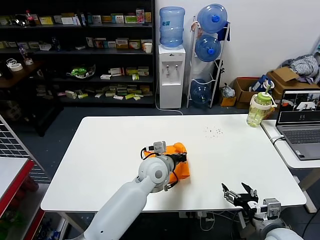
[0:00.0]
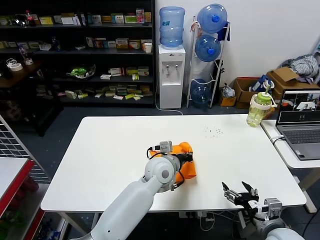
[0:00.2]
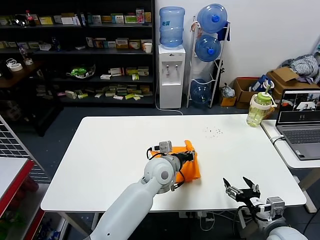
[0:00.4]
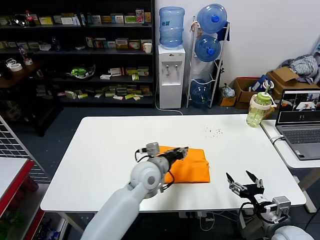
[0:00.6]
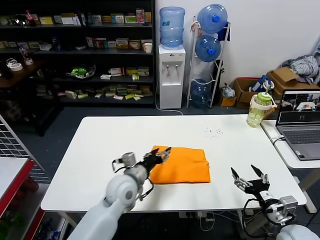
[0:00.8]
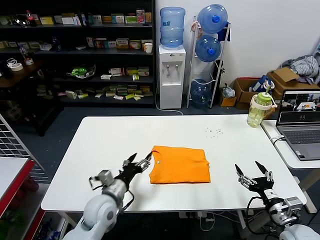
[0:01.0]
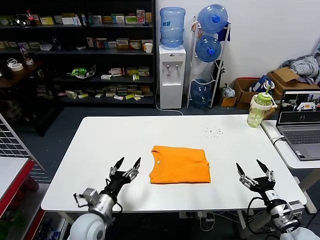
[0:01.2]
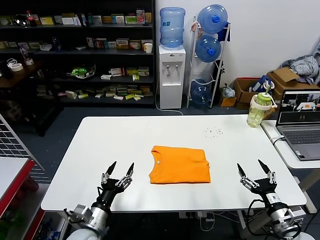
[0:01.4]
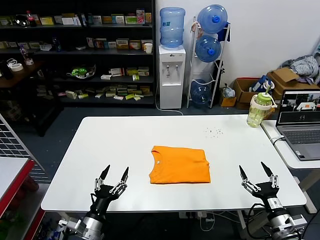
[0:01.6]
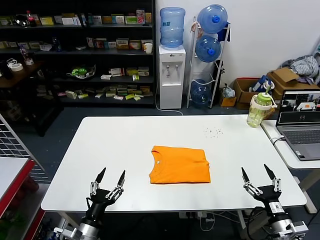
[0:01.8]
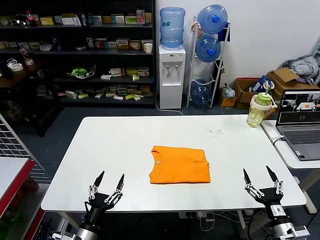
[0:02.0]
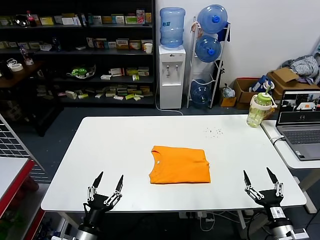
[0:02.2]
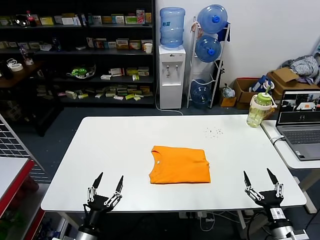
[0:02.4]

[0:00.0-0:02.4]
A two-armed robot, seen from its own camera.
Task of the whole recording: fold and organize the clothes.
0:00.0 to 0:01.2: The right gripper goes about 5 cm to the right. The left gripper shifts some 25 cm to the left, backward and downward, and opens up.
0:01.2 to 0:02.4: The right gripper moves about 5 cm. The left gripper goes about 10 cm backward.

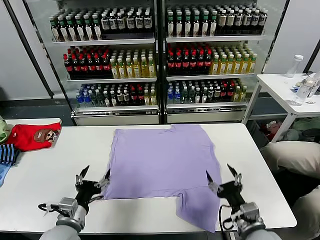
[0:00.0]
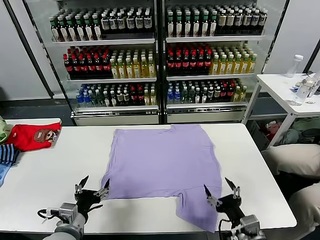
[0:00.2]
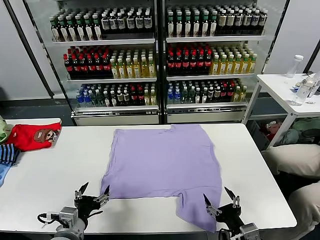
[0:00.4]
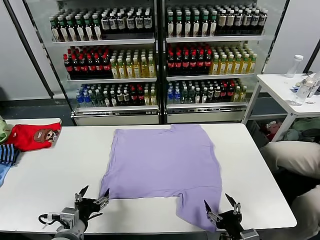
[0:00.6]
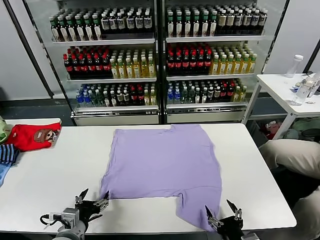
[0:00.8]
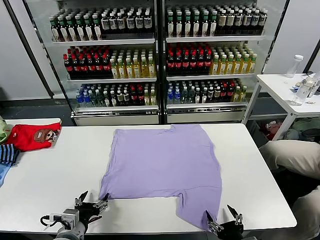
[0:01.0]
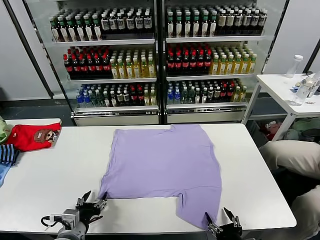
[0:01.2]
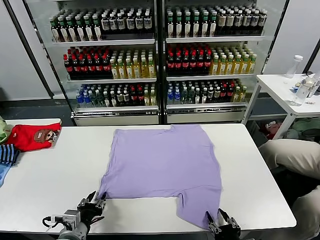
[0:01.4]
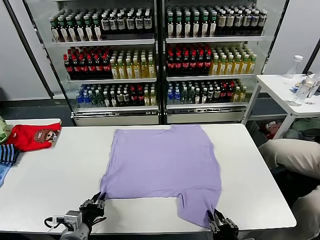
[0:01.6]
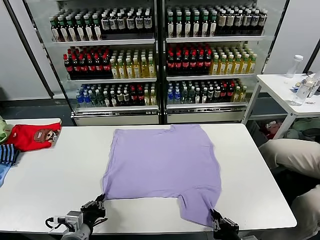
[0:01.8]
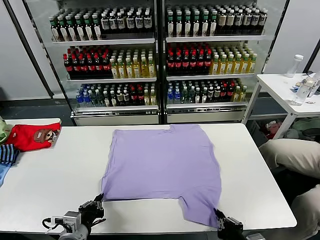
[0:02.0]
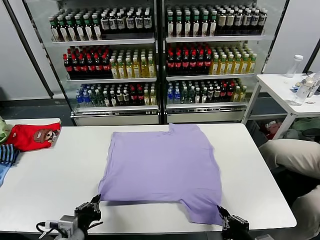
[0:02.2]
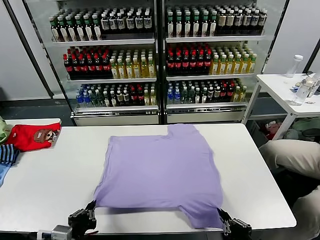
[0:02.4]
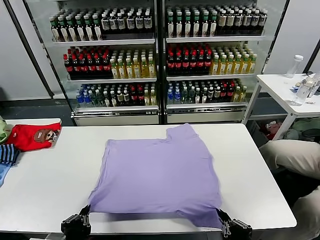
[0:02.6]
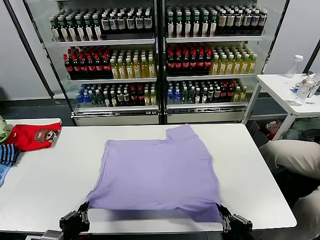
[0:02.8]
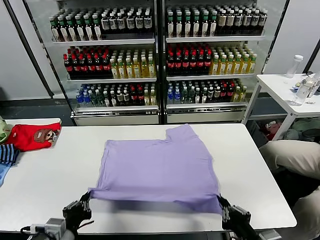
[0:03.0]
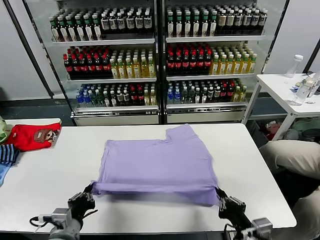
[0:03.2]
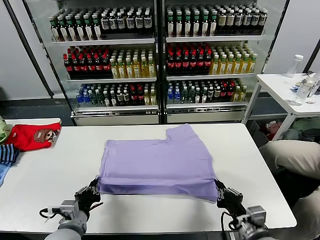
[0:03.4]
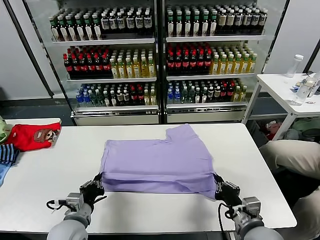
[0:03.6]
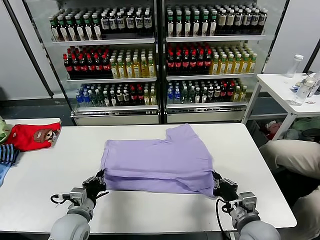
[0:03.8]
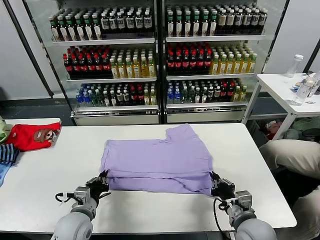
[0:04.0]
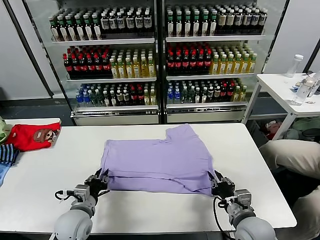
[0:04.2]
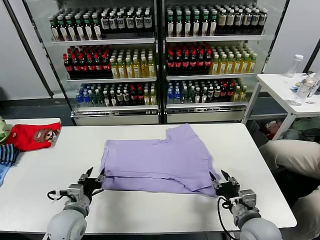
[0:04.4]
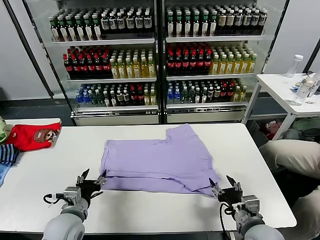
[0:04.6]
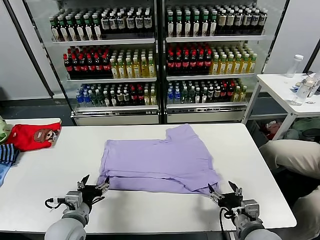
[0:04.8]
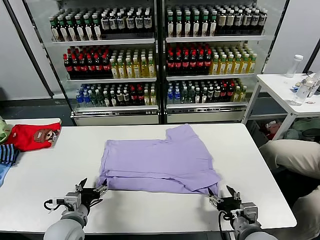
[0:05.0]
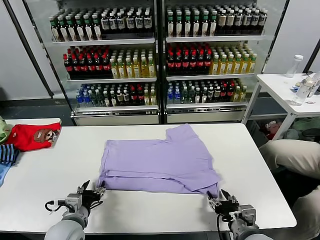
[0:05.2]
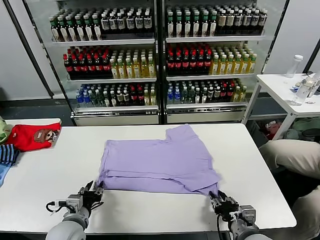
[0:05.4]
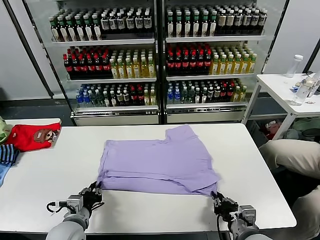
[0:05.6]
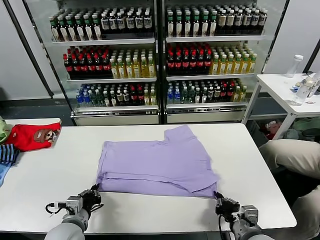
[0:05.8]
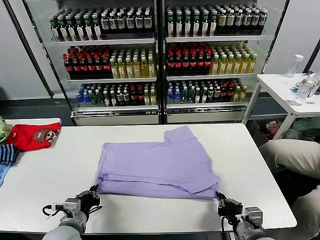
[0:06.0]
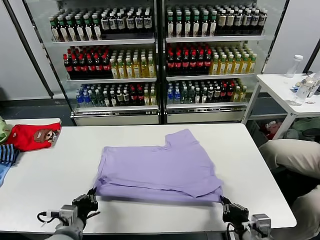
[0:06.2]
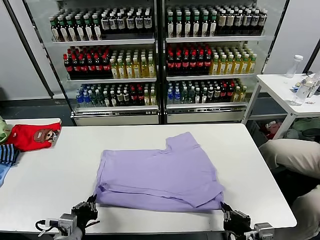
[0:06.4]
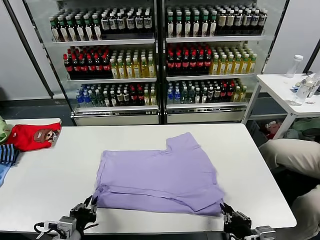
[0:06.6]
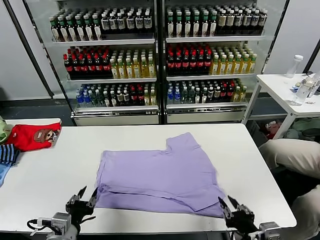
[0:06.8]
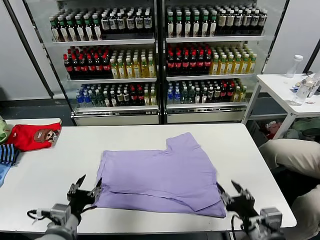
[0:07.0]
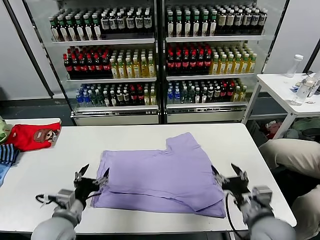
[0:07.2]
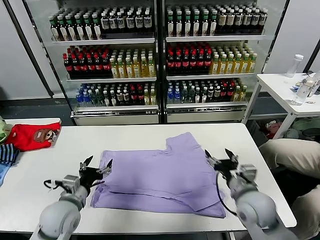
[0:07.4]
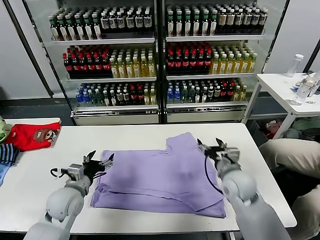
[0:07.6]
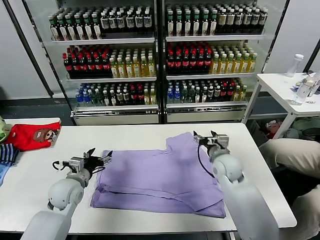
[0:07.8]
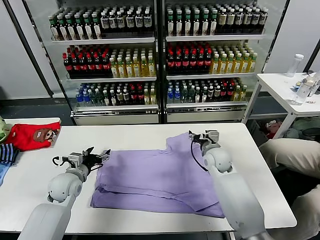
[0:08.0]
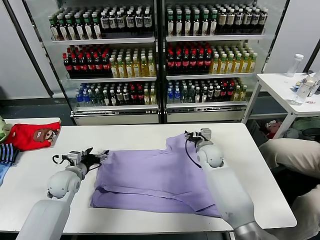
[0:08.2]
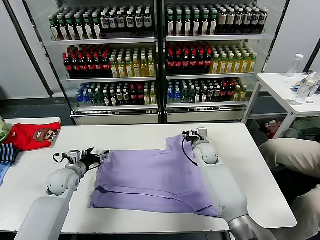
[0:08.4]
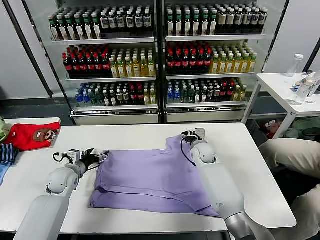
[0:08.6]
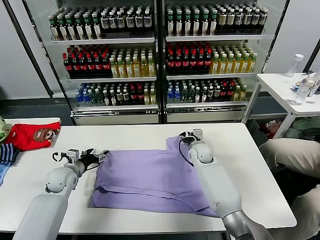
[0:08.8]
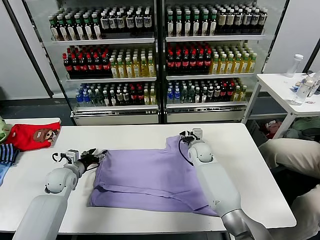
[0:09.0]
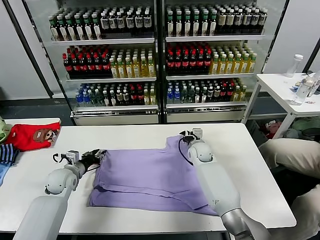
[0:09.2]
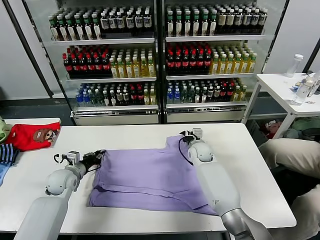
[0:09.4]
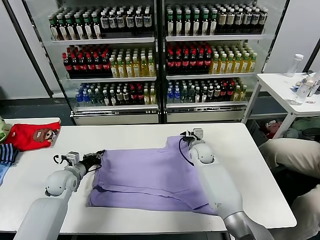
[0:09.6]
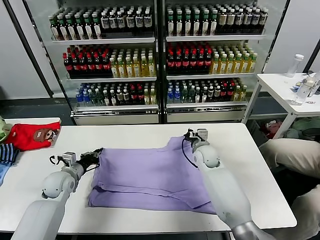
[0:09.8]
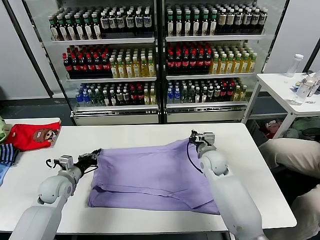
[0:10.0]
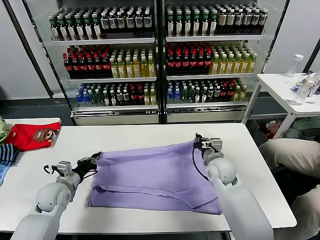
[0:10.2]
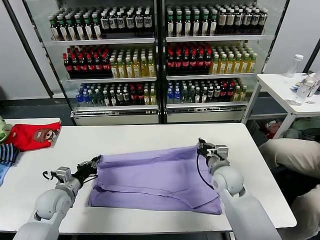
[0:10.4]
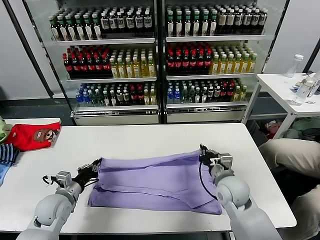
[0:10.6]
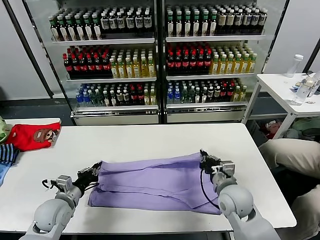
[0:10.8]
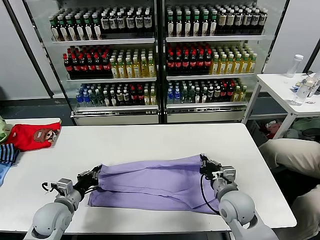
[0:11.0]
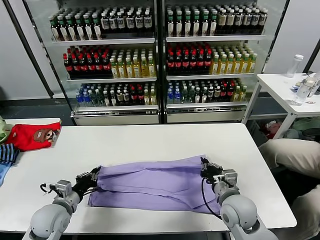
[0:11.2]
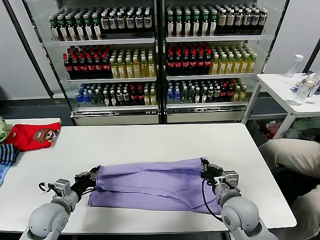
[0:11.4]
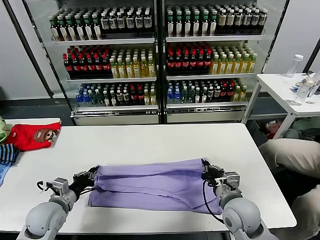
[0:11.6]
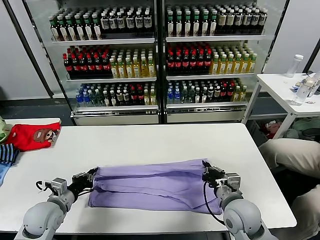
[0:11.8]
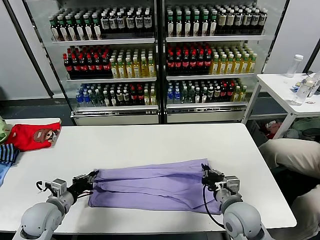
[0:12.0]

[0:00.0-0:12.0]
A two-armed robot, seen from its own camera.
Task of the whole recording: fold and organize the clothes.
Step, 0:00.0 to 0:02.0: use both grippers simultaneously to clamp the lower edge of the clothing fabric.
Step, 0:02.2 to 0:04.4: use both grippers to drag the lower edge of the fabric forward and fold it over the upper edge.
Step, 0:04.6 to 0:06.8: Drag the clothes downward with both gripper.
Step, 0:07.0 to 0:09.8: use both grippers simultaneously to clamp the upper edge of the clothing fabric.
0:01.6 to 0:03.0: The left gripper goes roughly 5 cm upward, while the right gripper heads upward, covering about 10 cm.
0:03.0 to 0:04.4: The two grippers go some 10 cm forward. The right gripper opens up, while the left gripper opens up.
0:04.4 to 0:06.0: The right gripper goes approximately 5 cm backward, and closes; the left gripper closes its fingers.
0:06.0 to 0:07.6: The left gripper shifts some 10 cm forward, and opens up. Meanwhile the right gripper moves forward, some 25 cm, and opens its fingers.
0:07.6 to 0:09.0: The right gripper goes roughly 15 cm forward, to the left and downward, and closes up. The left gripper heads forward and to the left, covering about 10 cm.
0:09.0 to 0:10.4: The left gripper travels backward by some 10 cm, and closes its fingers. The right gripper shifts roughly 15 cm backward, and closes its fingers.
0:10.4 to 0:12.0: The left gripper heads backward, covering some 5 cm. Meanwhile the right gripper goes approximately 10 cm backward.

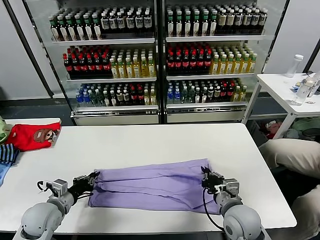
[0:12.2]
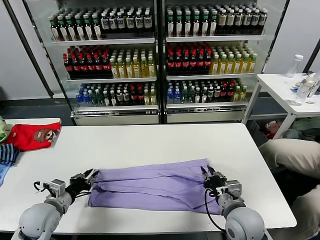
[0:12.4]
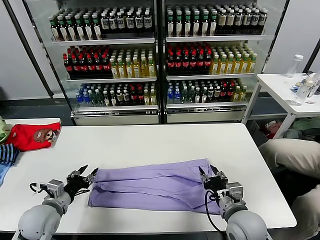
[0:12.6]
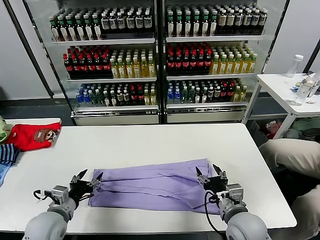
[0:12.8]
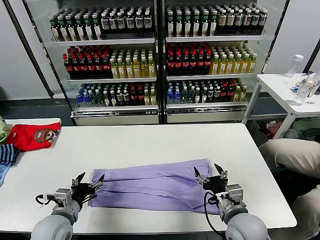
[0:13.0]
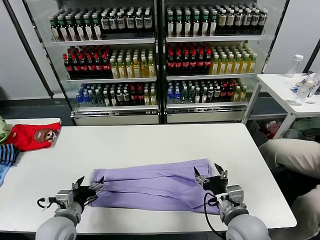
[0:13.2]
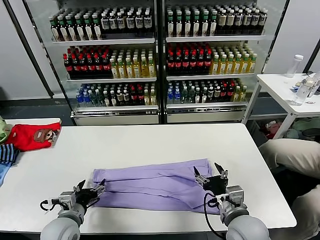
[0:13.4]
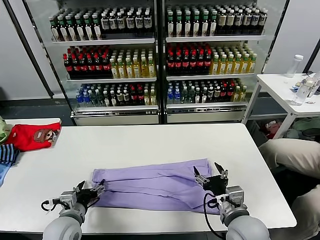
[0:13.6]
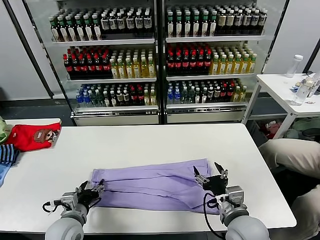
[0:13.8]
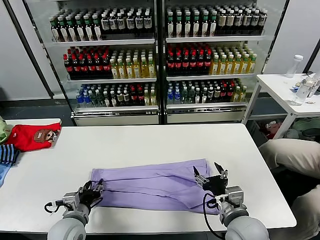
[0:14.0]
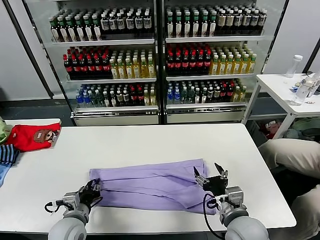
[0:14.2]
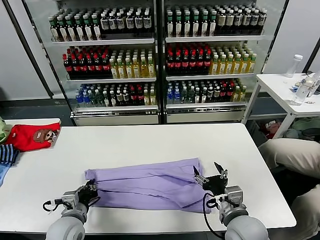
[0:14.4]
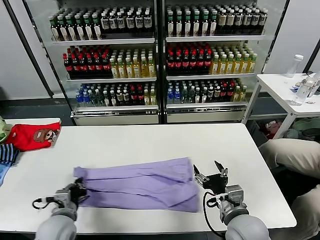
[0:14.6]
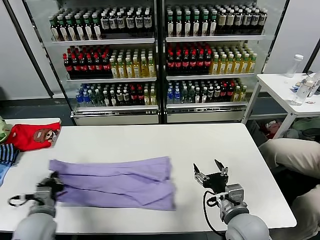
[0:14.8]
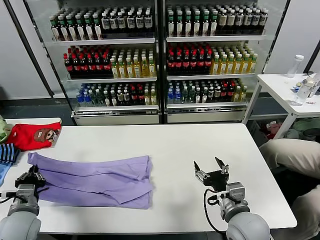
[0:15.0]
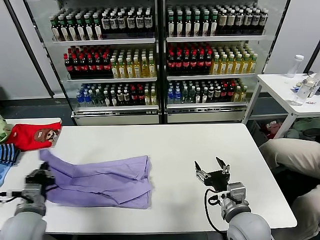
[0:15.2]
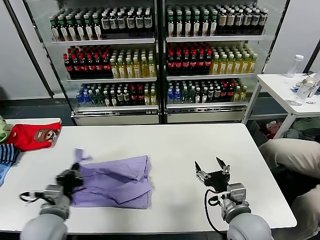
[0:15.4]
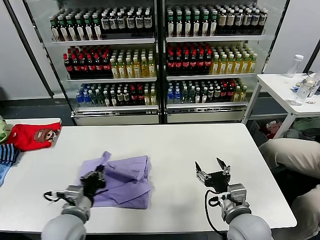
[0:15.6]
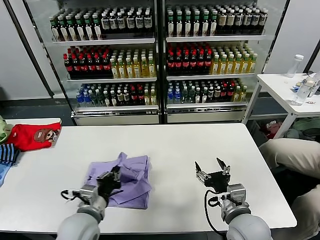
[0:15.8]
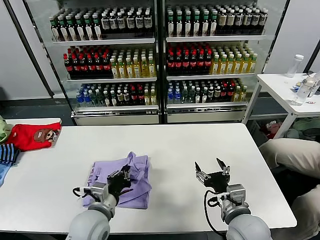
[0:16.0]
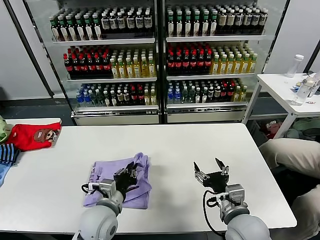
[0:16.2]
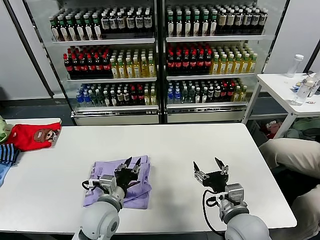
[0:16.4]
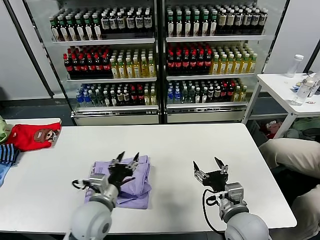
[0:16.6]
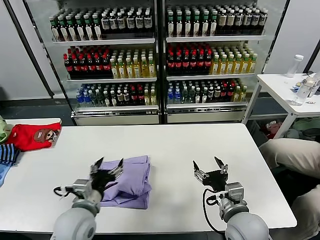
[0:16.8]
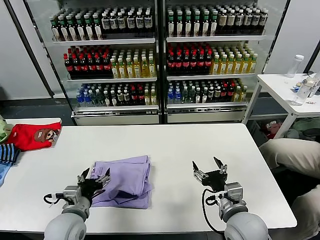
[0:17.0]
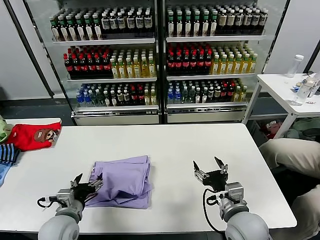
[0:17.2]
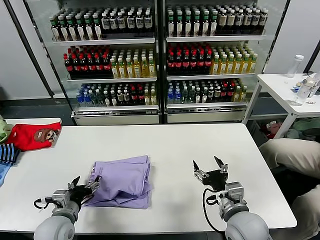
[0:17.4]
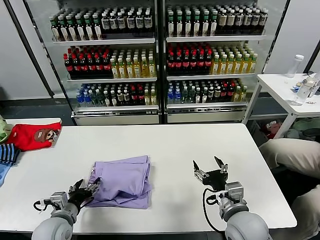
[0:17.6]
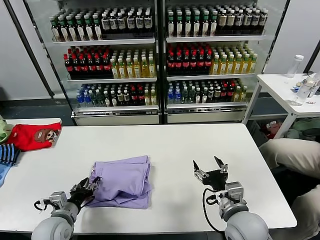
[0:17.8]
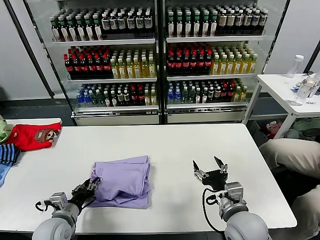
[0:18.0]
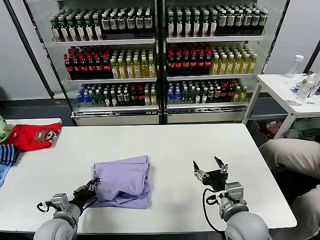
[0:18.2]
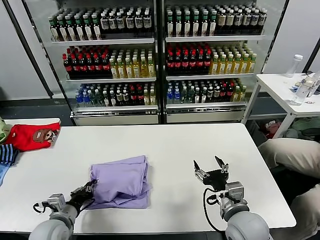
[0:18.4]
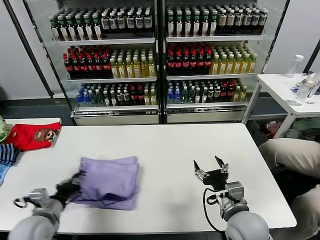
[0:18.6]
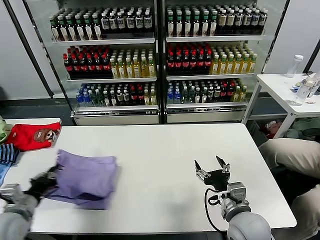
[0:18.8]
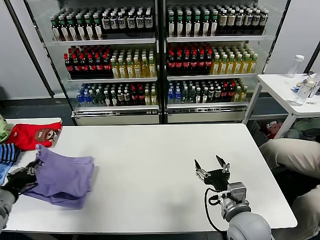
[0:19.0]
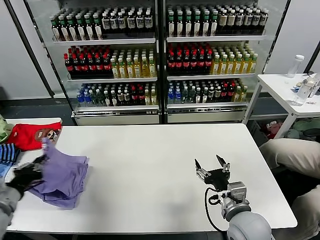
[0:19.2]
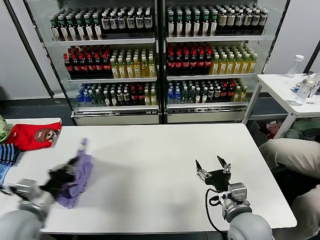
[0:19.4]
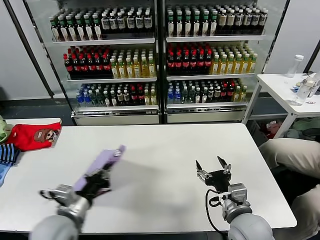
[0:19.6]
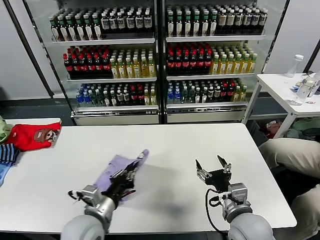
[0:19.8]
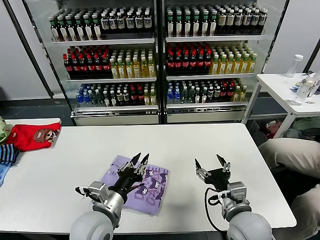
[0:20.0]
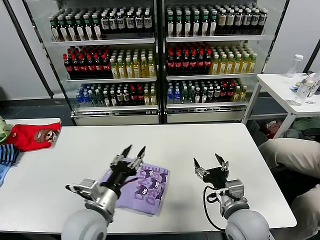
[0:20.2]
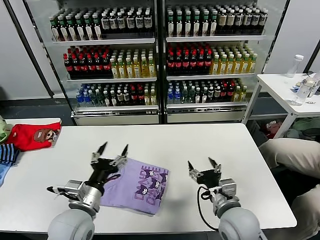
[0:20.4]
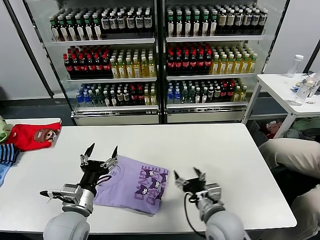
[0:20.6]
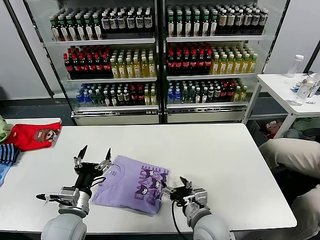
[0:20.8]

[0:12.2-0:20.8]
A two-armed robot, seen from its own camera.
Task of the whole recording: fold and organize the clothes.
Step, 0:12.8 to 0:14.2: use the left gripper to clamp the left edge of the fabric.
Step, 0:14.4 to 0:16.6: use the left gripper to drag the left edge of the fabric to the left and folds it over the right edge.
Step, 0:16.8 to 0:20.2: Flip the folded clothes over with left gripper.
0:12.2 to 0:13.6: The right gripper ends up some 5 cm from where it was, and opens. The left gripper shifts about 10 cm to the right, and opens its fingers.
0:13.6 to 0:15.0: The left gripper goes about 10 cm to the left, and closes up.
0:15.0 to 0:16.6: The left gripper goes roughly 20 cm to the right, and opens its fingers.
0:16.6 to 0:18.0: The left gripper heads to the left and downward, covering approximately 15 cm.
0:18.0 to 0:19.4: The left gripper travels upward by roughly 15 cm.
0:19.4 to 0:20.8: The right gripper heads to the left and downward, covering roughly 10 cm, while the left gripper travels to the right by about 10 cm, and opens its fingers.
